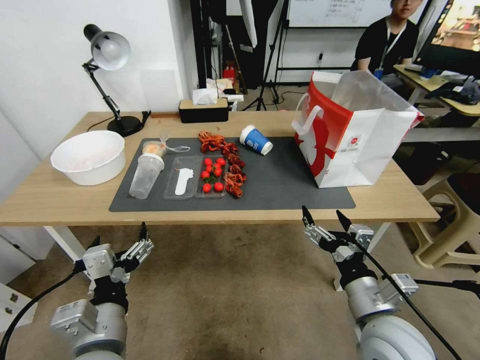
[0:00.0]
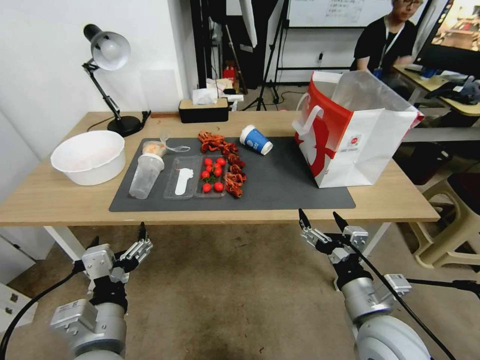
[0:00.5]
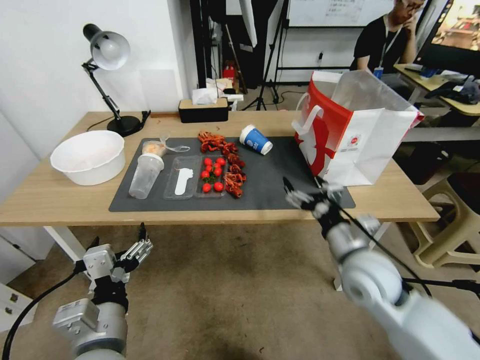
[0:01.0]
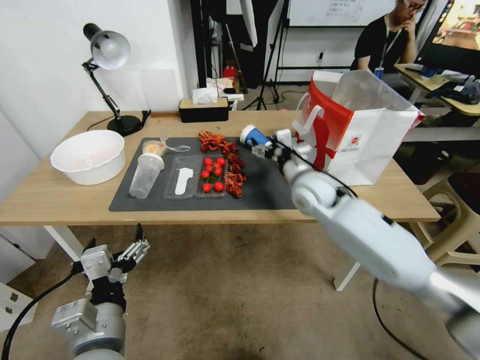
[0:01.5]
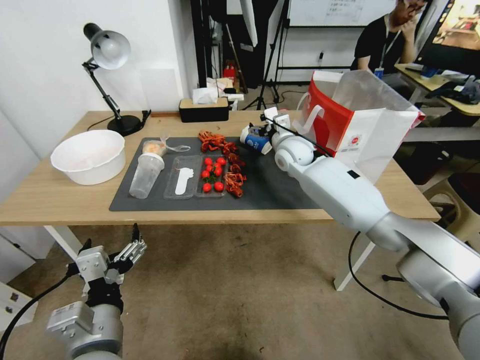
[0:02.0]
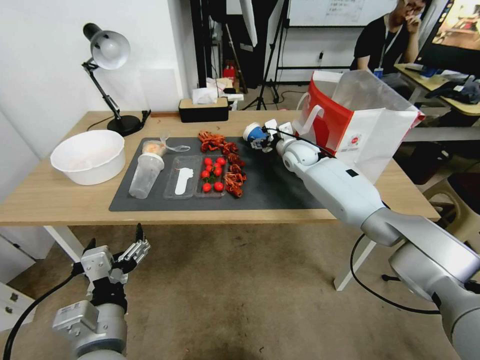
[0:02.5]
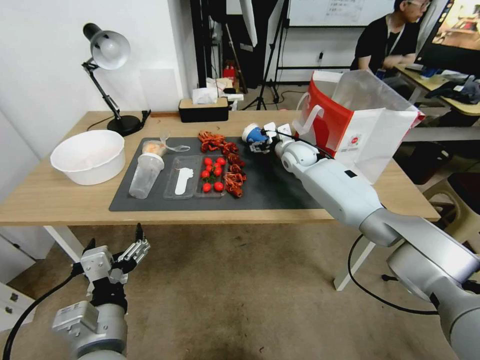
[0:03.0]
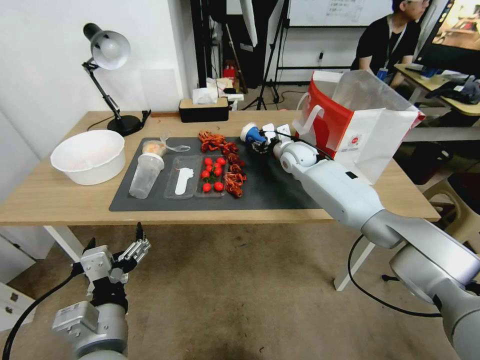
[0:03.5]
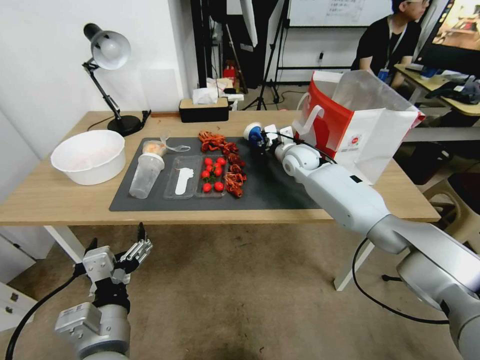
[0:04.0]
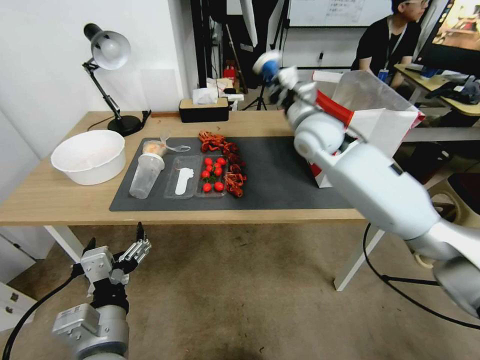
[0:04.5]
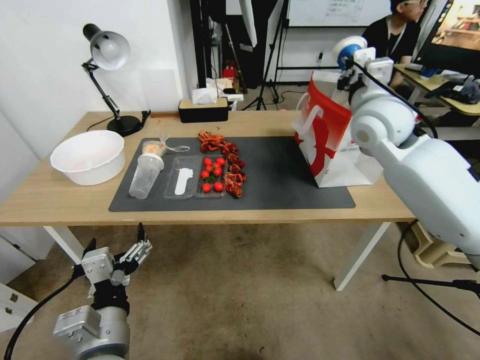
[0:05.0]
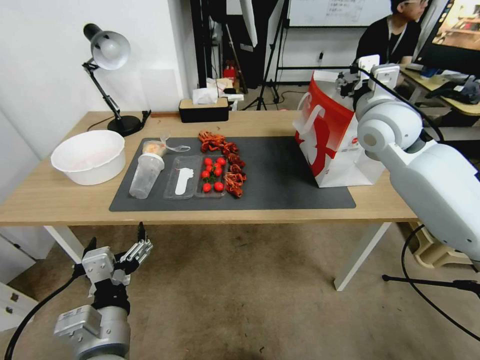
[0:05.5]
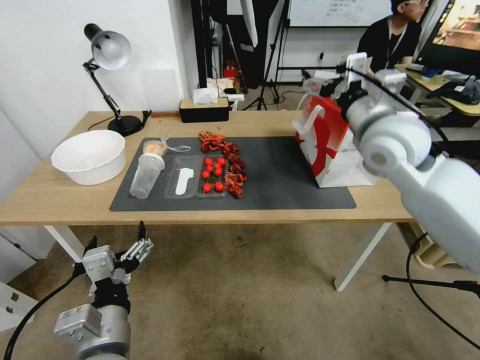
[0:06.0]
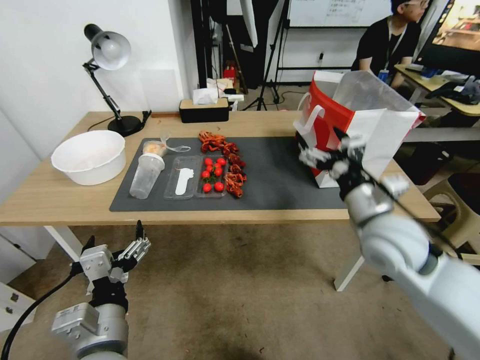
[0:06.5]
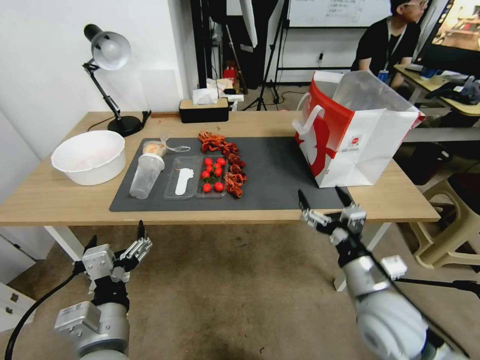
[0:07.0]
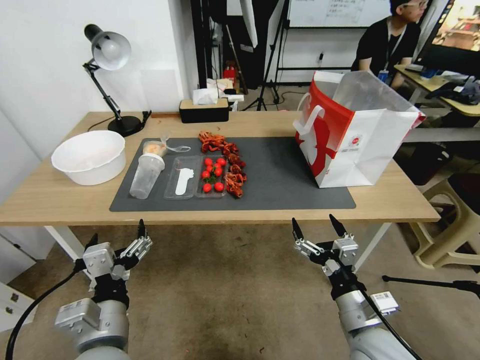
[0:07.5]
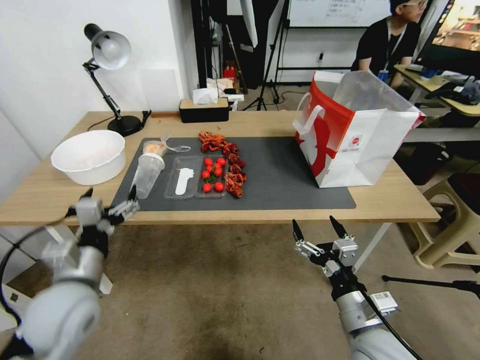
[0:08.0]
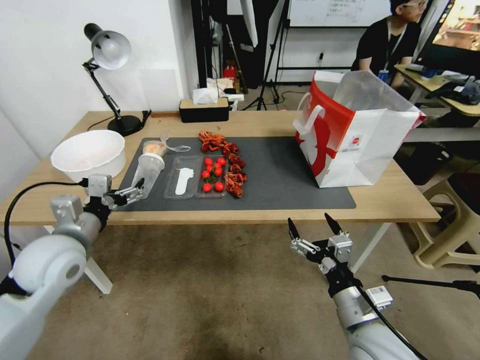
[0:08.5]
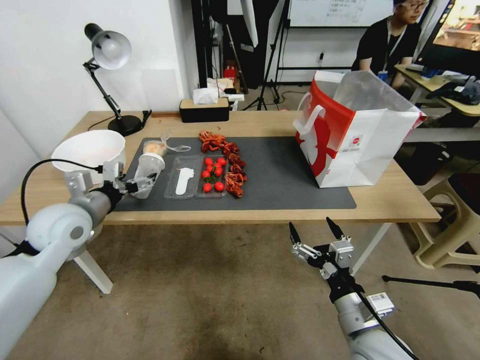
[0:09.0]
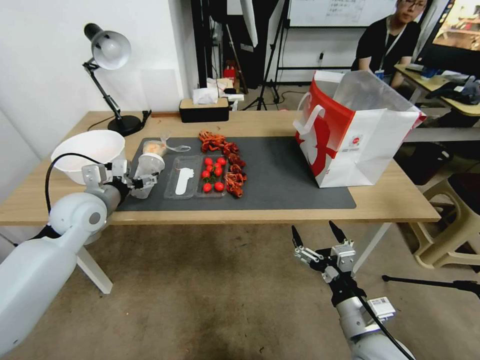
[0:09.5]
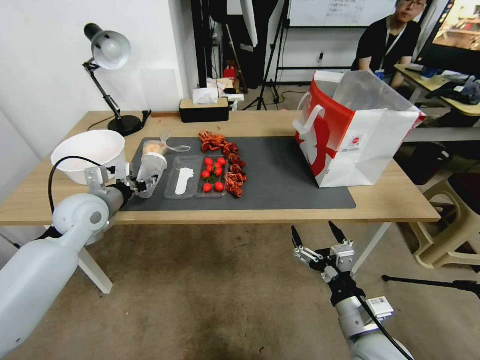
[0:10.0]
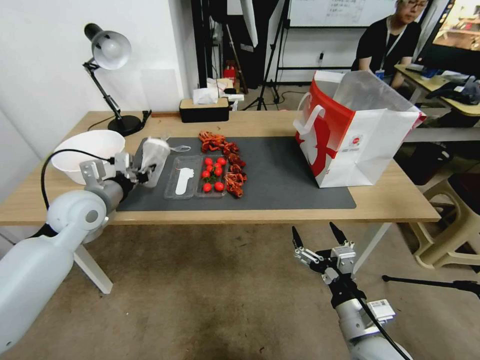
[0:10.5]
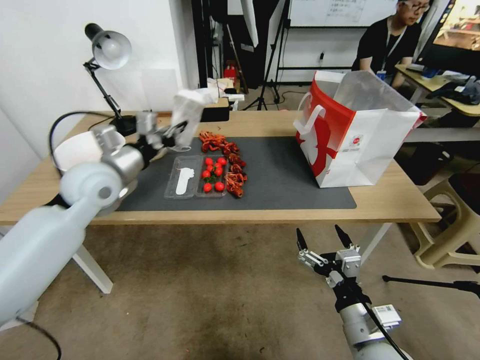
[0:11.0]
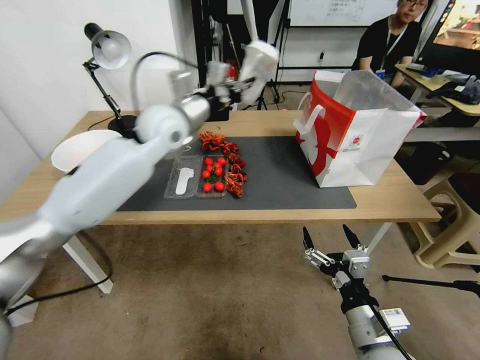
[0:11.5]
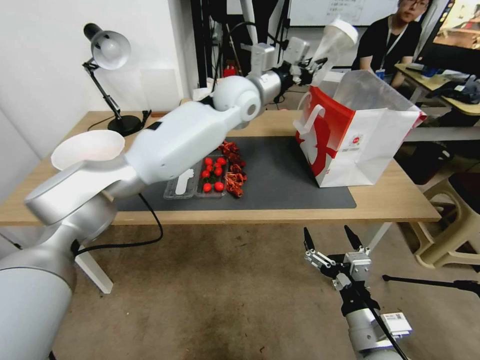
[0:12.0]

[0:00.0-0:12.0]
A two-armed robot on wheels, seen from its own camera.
0:00.0 to 0:02.0: The right gripper is displaced forward by about 40 cm.
0:02.0 to 0:04.0: The right gripper shifts by approximately 5 cm, and closes.
0:04.0 to 0:06.0: The right gripper shifts approximately 25 cm upward, backward and to the right, and opens up.
0:06.0 to 0:08.0: The right gripper goes some 35 cm downward and backward. The left gripper goes approximately 10 cm to the left and forward.
0:08.0 to 0:10.0: The left gripper moves forward, about 20 cm, and closes up.
0:10.0 to 0:12.0: The left gripper is displaced to the right, upward and forward by some 40 cm, and closes up.

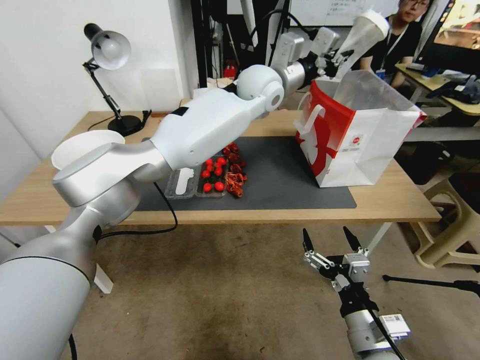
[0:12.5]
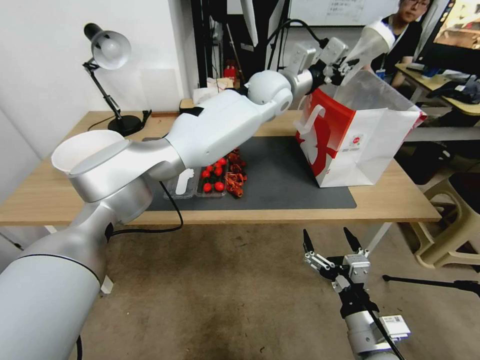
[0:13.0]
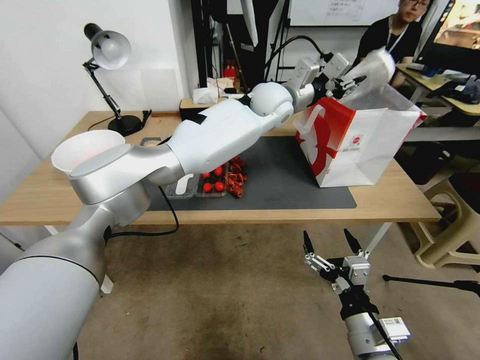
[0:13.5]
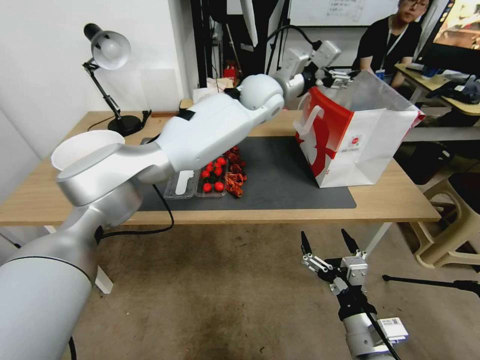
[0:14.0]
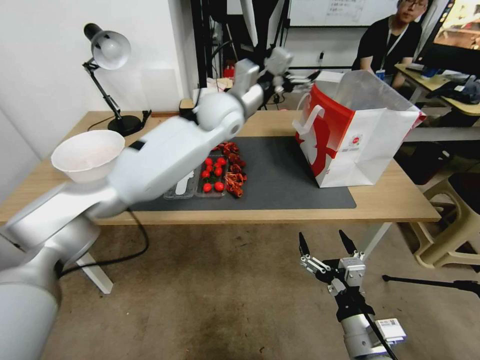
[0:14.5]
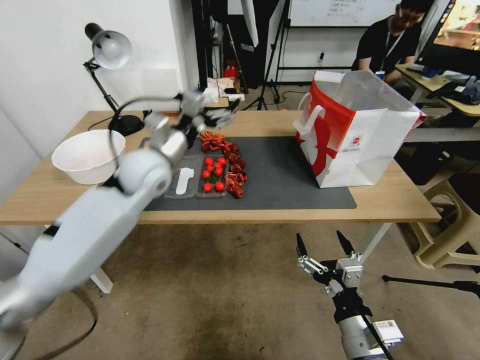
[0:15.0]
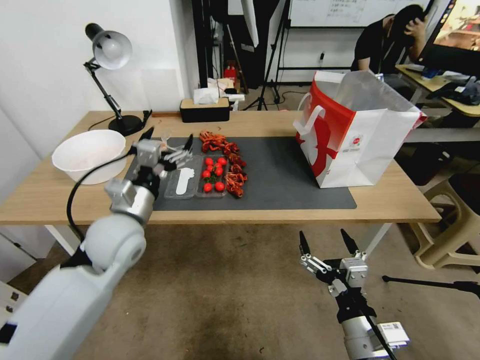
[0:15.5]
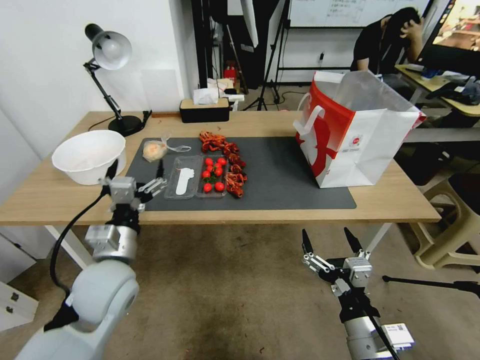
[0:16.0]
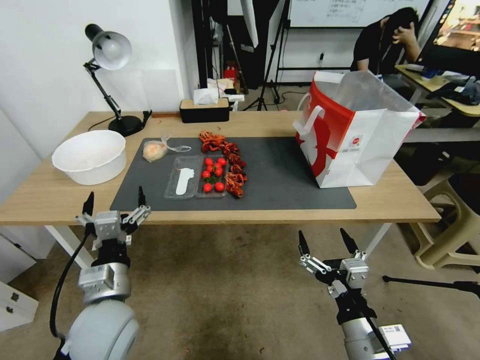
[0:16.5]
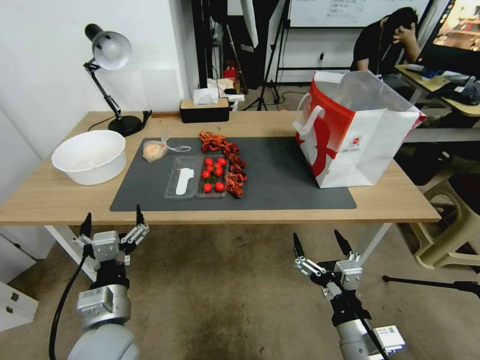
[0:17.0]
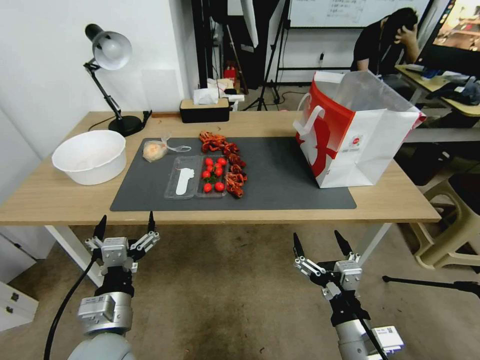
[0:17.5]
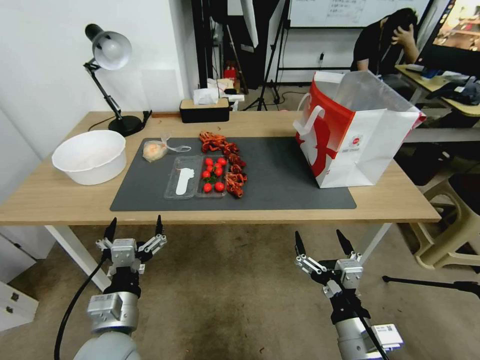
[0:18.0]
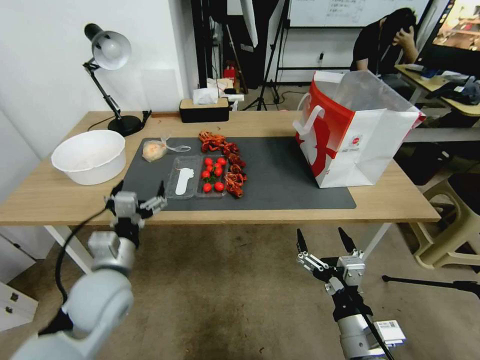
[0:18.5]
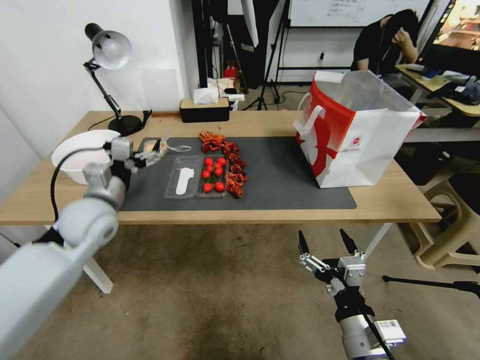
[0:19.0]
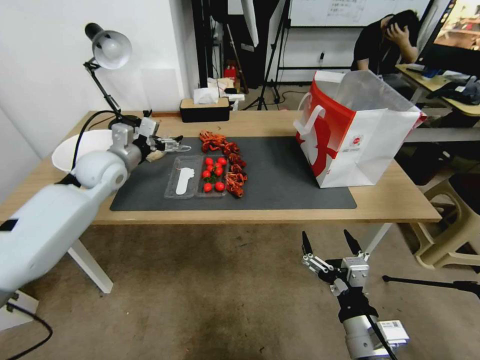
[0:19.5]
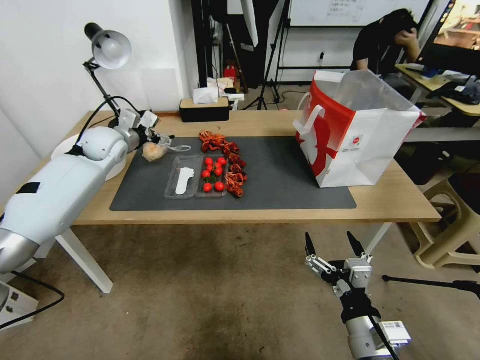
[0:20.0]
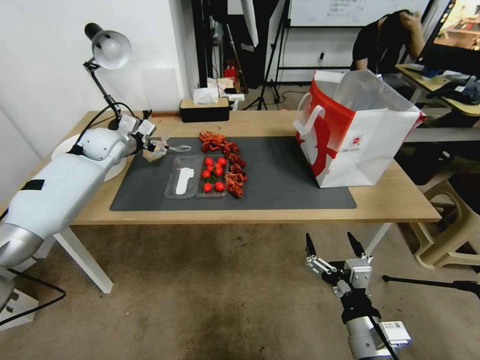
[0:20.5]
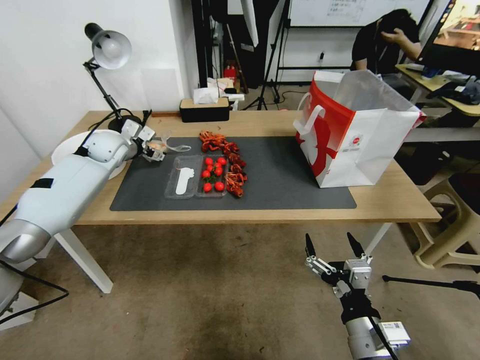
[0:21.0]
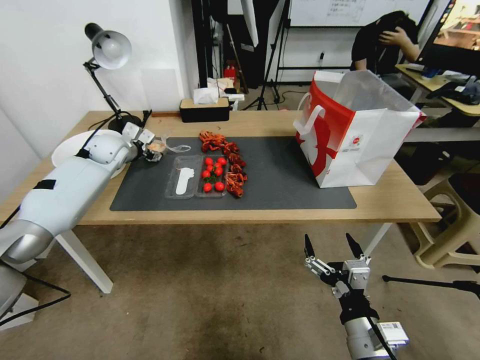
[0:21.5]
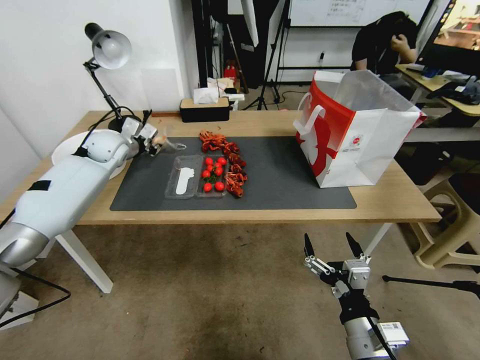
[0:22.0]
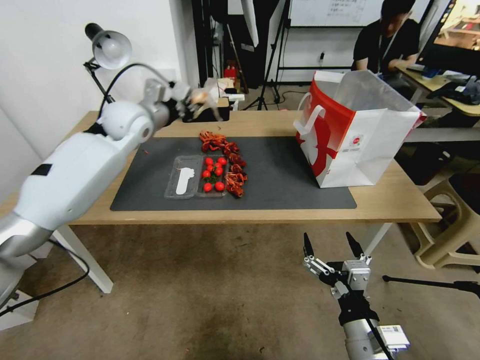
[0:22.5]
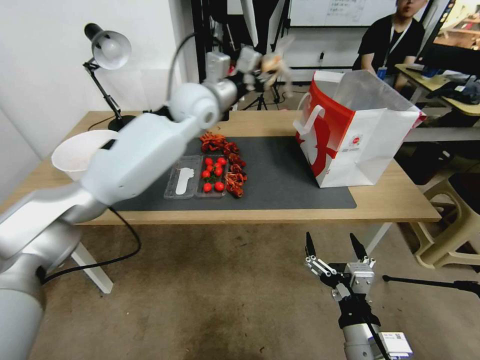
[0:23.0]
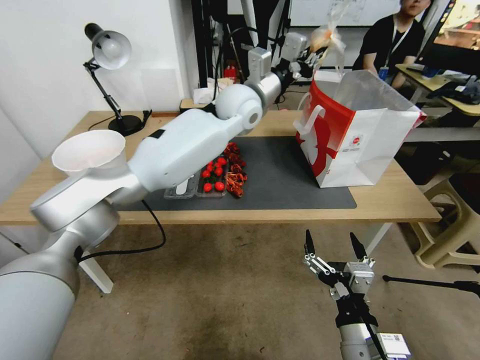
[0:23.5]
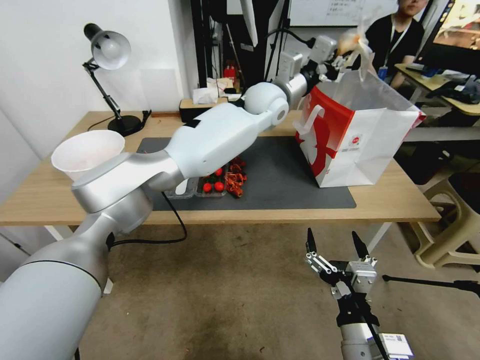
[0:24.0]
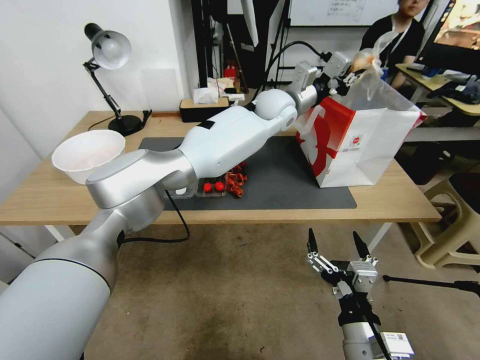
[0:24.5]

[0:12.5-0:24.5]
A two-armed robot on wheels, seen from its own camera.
0:12.5 to 0:14.5: The left gripper is displaced to the left by roughly 5 cm, and opens.
0:14.5 to 0:16.5: The left gripper heads backward, downward and to the left, covering about 40 cm.
0:16.5 to 0:18.5: The grippers move only a little.
0:18.5 to 0:20.5: The left gripper travels forward by roughly 35 cm.
0:20.5 to 0:22.5: The left gripper goes approximately 10 cm to the right and upward, and closes its fingers.
0:22.5 to 0:24.5: The left gripper shifts approximately 35 cm to the right.

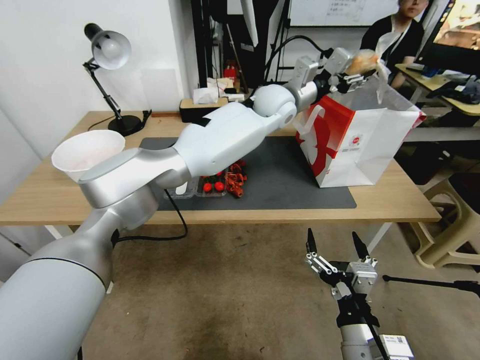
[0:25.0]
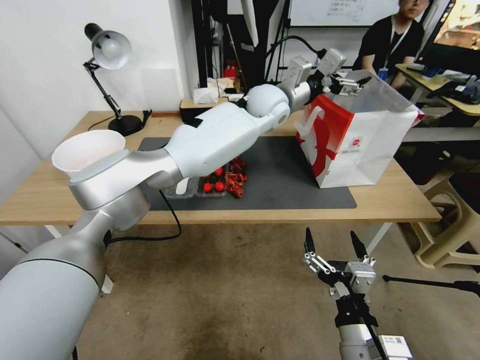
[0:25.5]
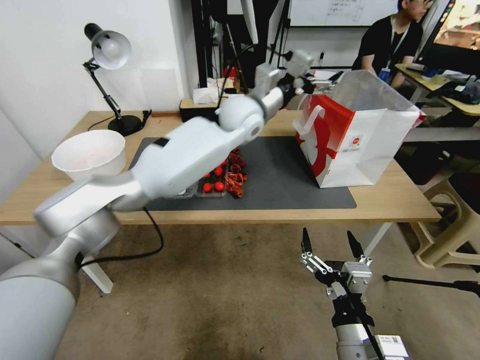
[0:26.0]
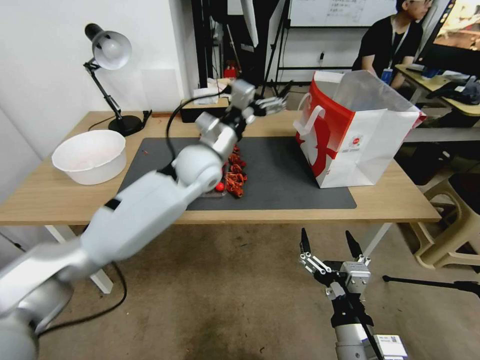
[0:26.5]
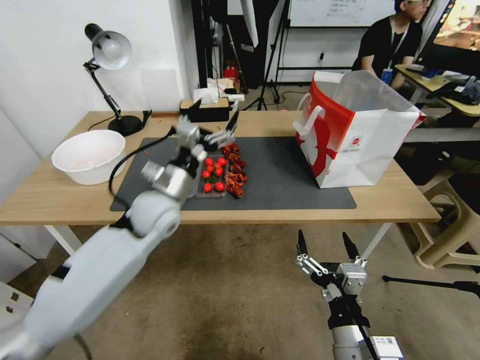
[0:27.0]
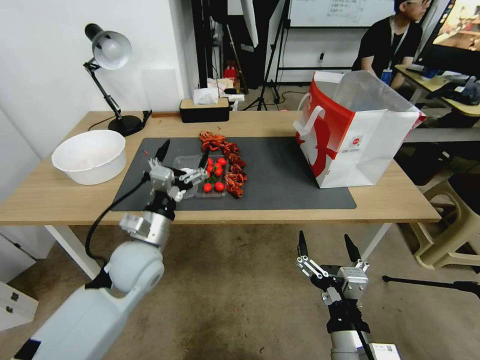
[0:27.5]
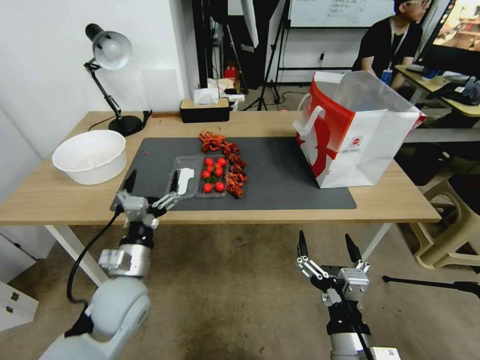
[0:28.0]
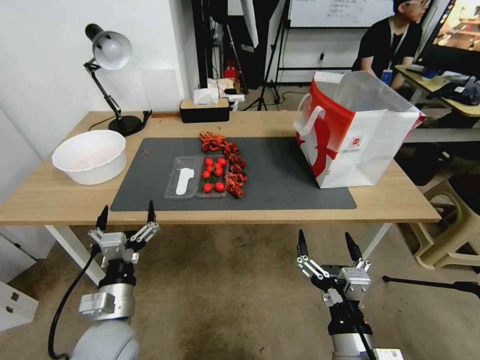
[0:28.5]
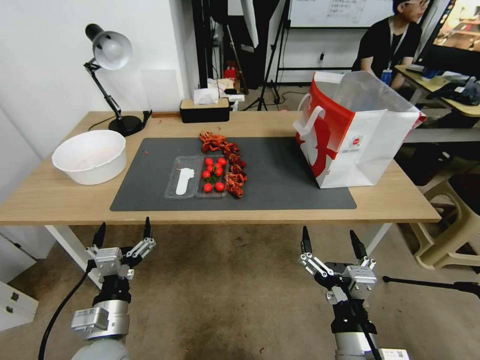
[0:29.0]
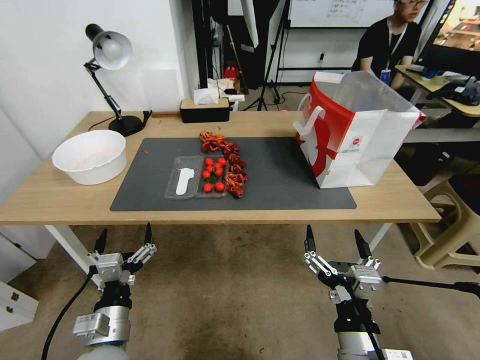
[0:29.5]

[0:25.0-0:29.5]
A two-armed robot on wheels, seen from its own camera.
0:25.0 to 0:27.0: The left gripper shifts some 35 cm to the left, backward and downward, and opens.
0:27.0 to 0:29.5: The left gripper moves backward and downward, about 30 cm.